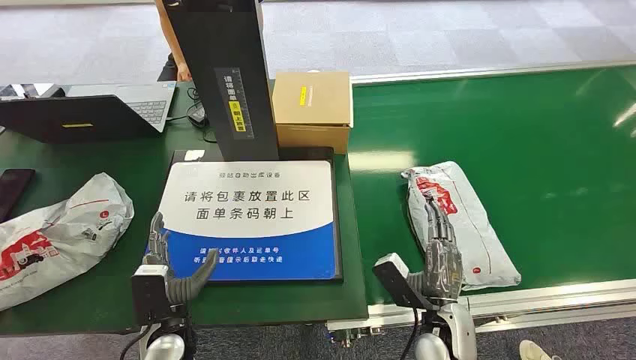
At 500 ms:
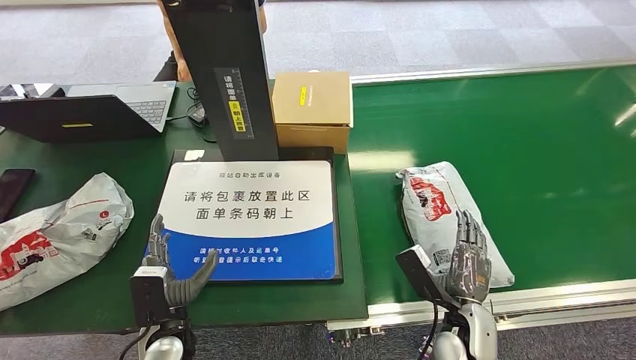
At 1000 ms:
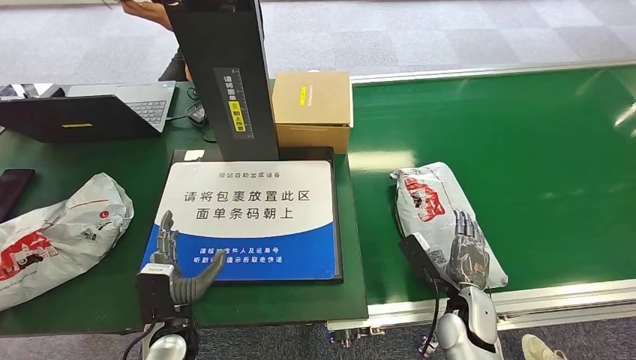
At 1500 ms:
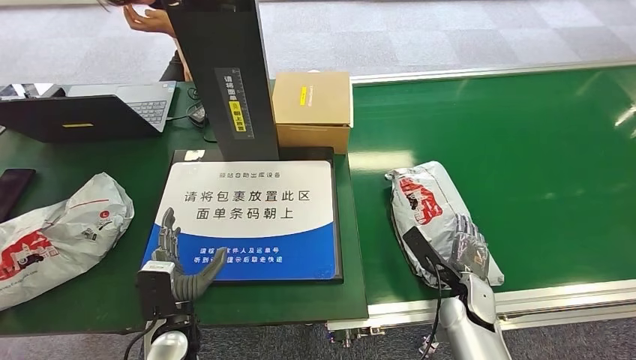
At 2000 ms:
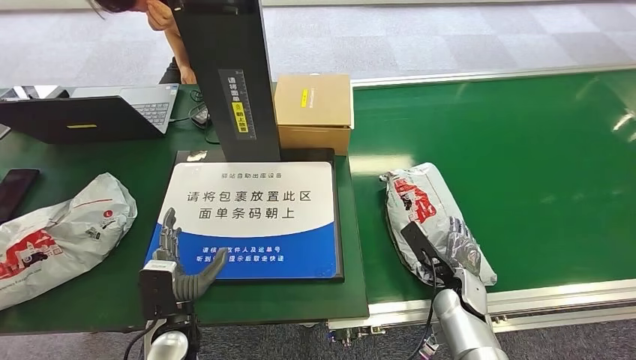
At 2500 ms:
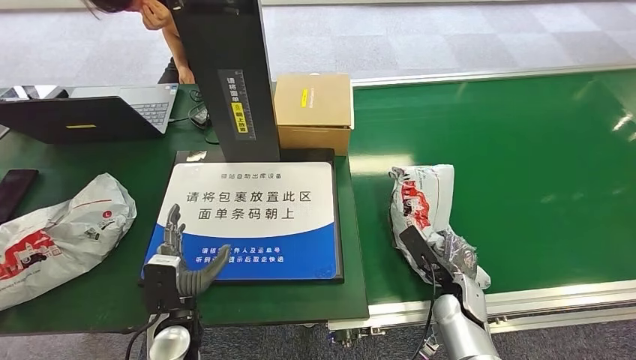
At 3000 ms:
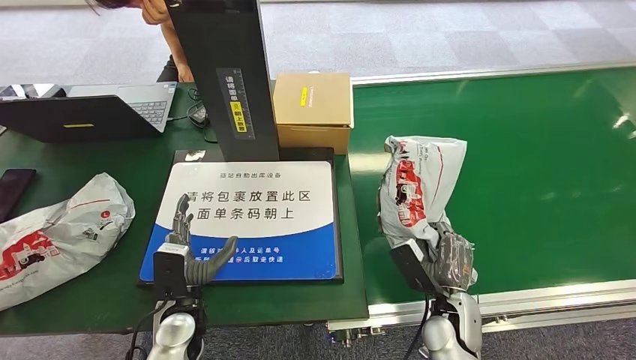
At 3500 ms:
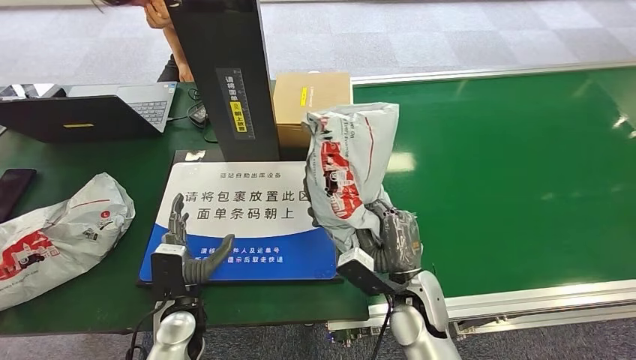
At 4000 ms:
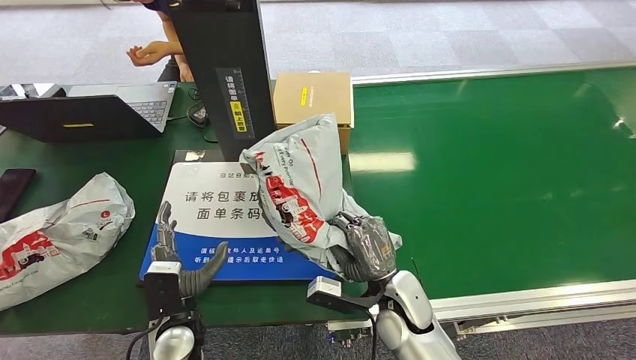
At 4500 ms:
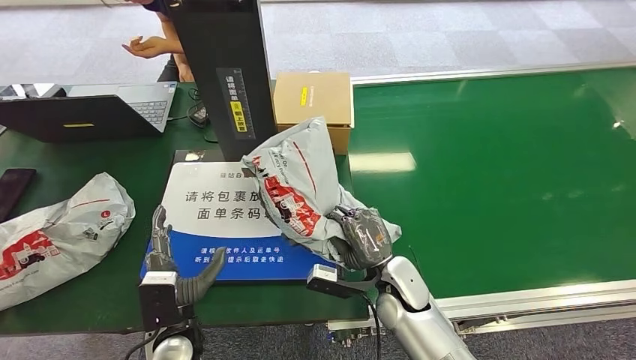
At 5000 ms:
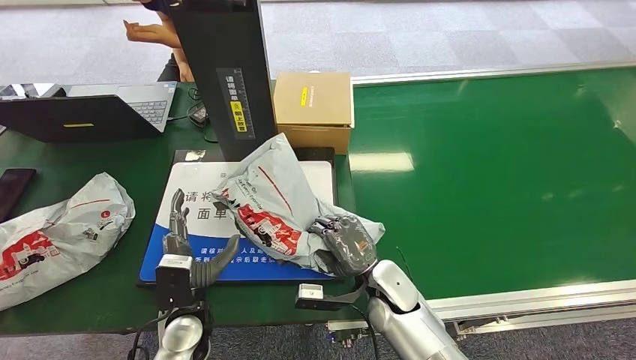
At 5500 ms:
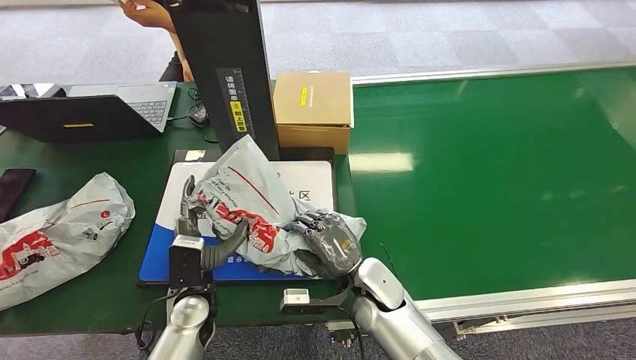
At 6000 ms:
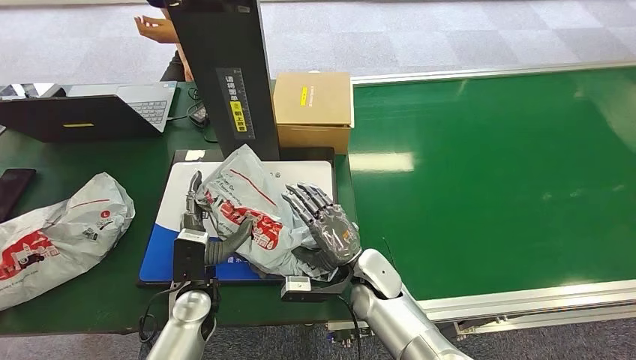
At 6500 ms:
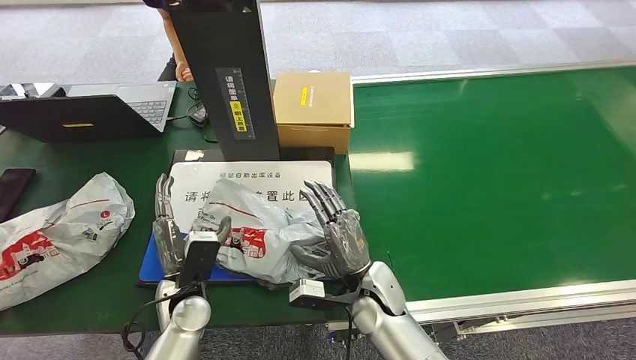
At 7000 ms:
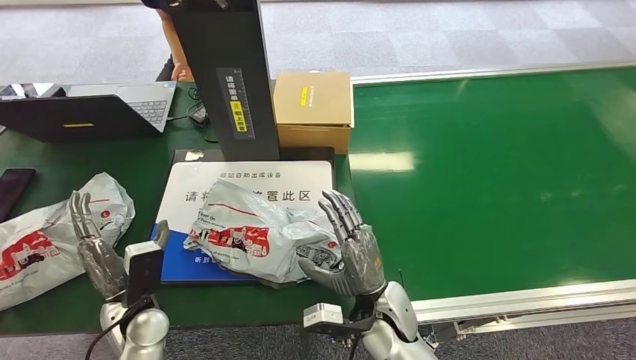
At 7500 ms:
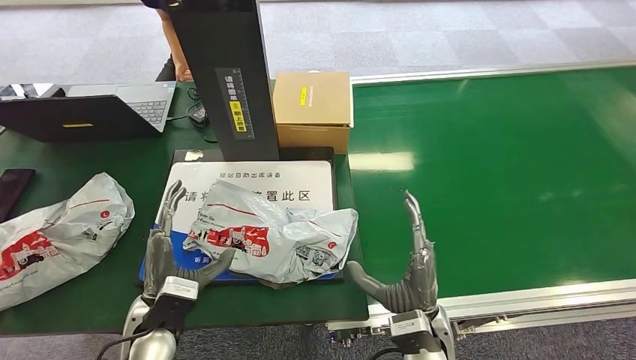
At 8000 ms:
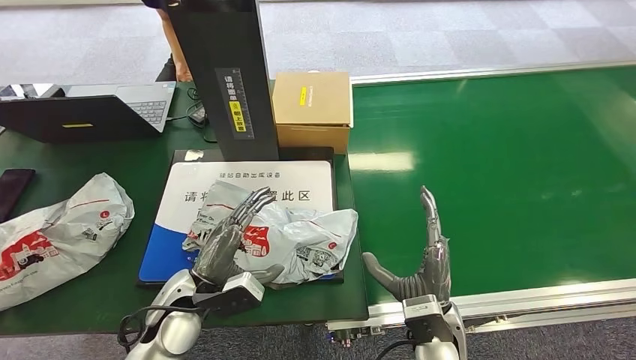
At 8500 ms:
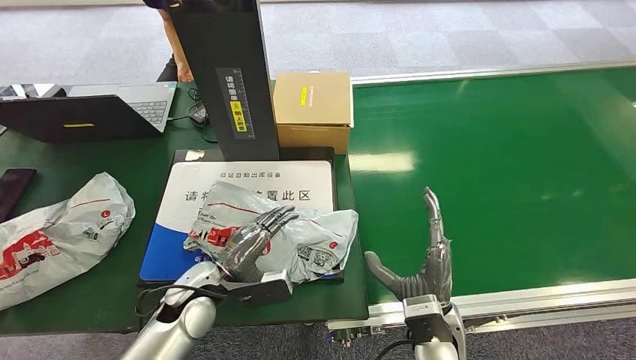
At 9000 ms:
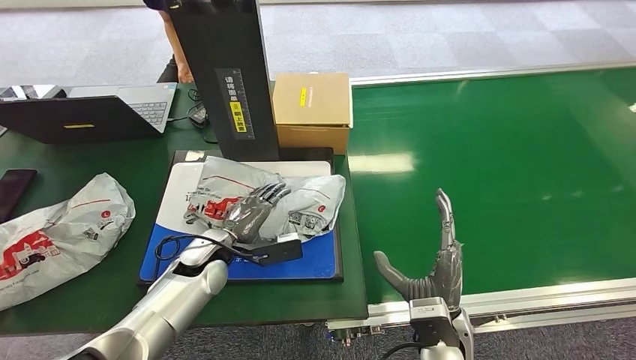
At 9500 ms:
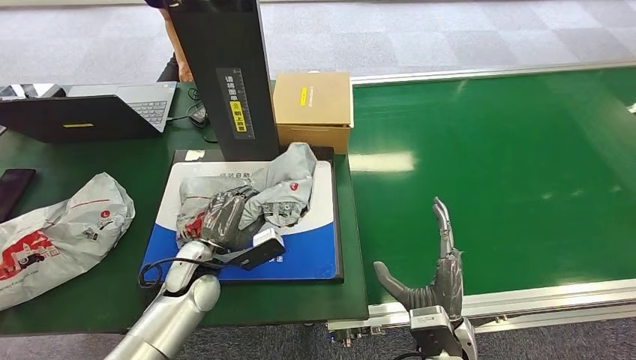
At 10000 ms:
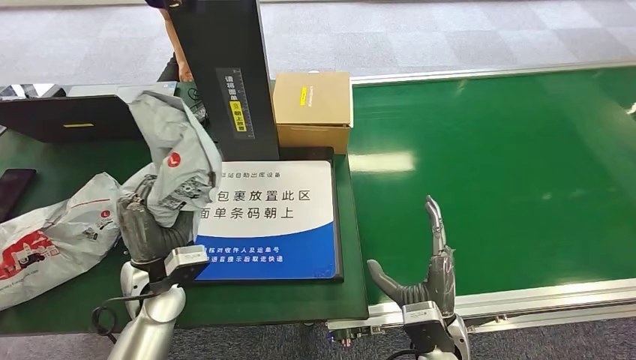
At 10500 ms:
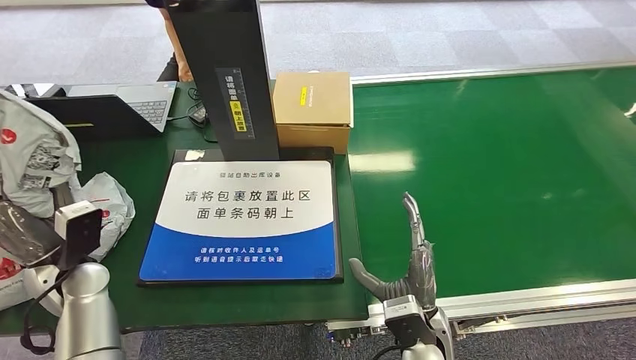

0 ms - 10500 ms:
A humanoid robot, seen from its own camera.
Step, 0 ms - 3500 ms: Pick up the package from the conveyor belt.
Step, 4000 ms - 7500 ms: Place the package onto the inbound machine.
Step, 8000 ms - 9500 ms: Pick up the package from the inbound machine.
6500 ms - 8500 ms: The right hand shifts roughly 10 cm to the right and backward; the left hand travels to the left and back again, roughly 5 cm each way.
8500 ms - 10500 ms: The left hand goes about 20 cm to the left.

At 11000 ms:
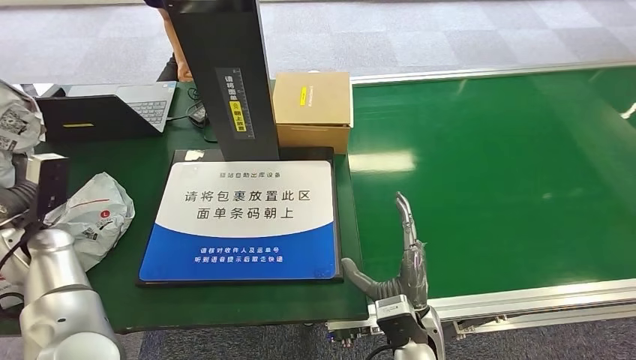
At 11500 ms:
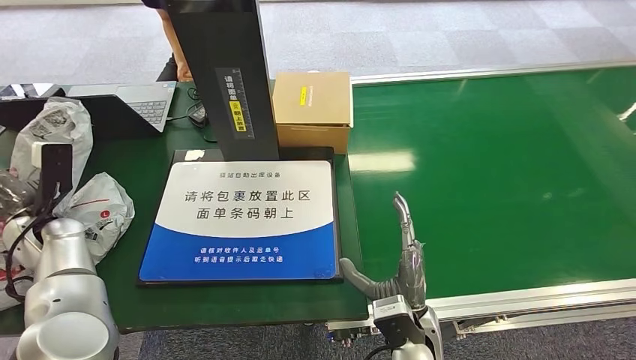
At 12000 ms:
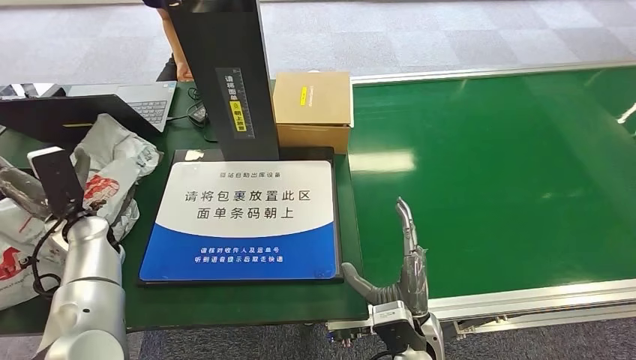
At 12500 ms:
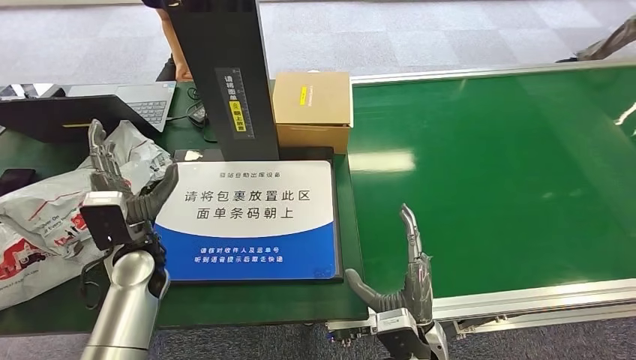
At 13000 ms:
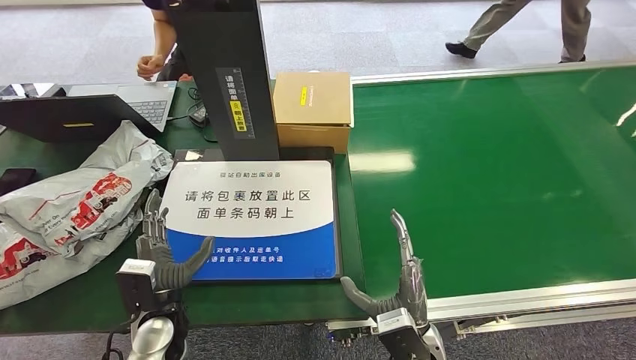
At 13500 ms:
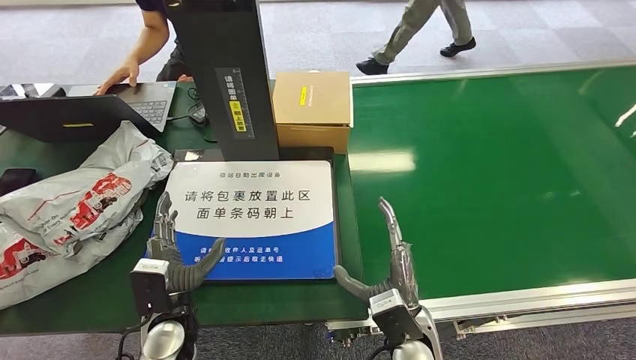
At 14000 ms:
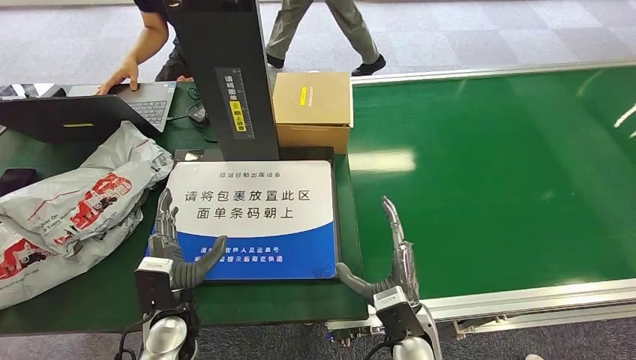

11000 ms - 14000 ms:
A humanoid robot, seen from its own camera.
Step, 11000 ms - 14000 ms: Place the package into the parcel locker.
11000 ms - 12500 ms: The left hand shifts roughly 20 cm to the right.
12500 ms - 14000 ms: The left hand travels backward, downward and to the right by about 15 cm.

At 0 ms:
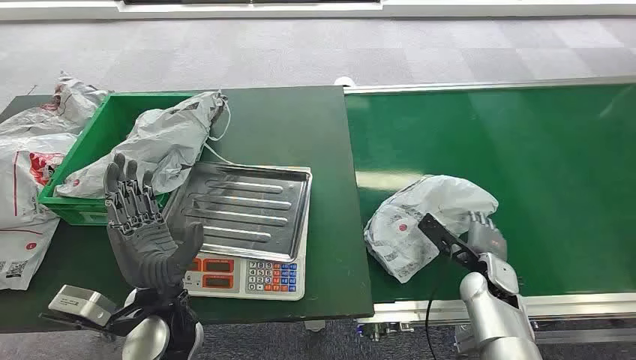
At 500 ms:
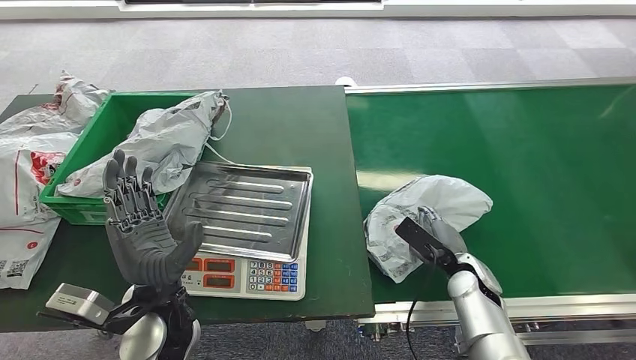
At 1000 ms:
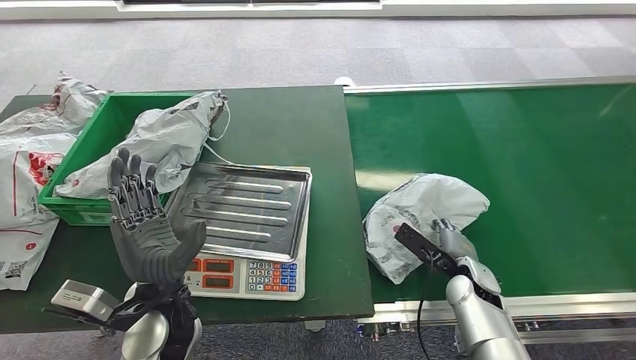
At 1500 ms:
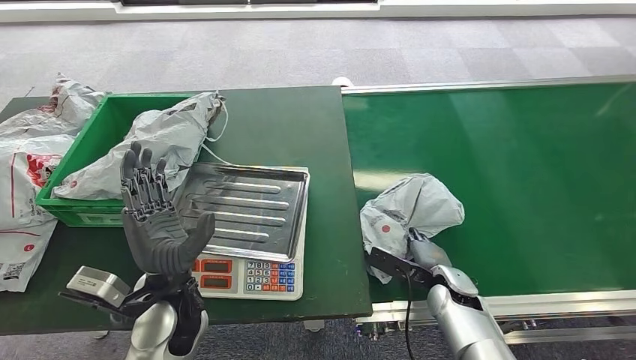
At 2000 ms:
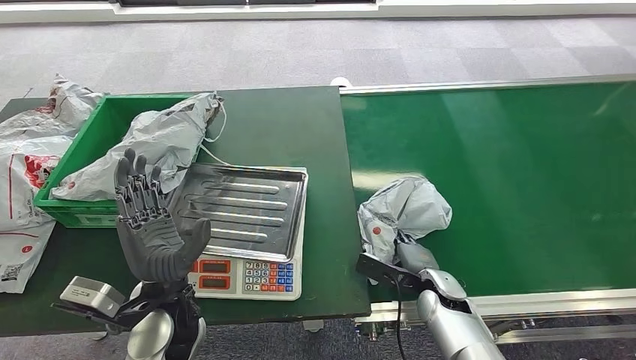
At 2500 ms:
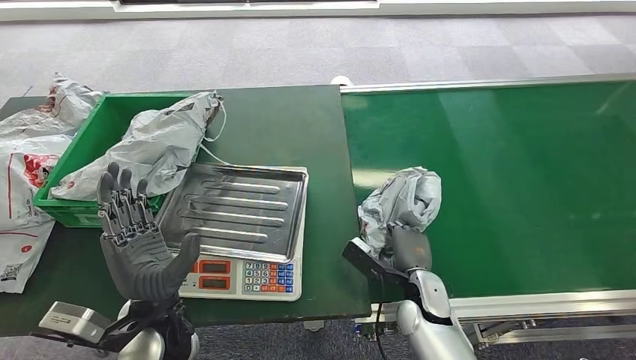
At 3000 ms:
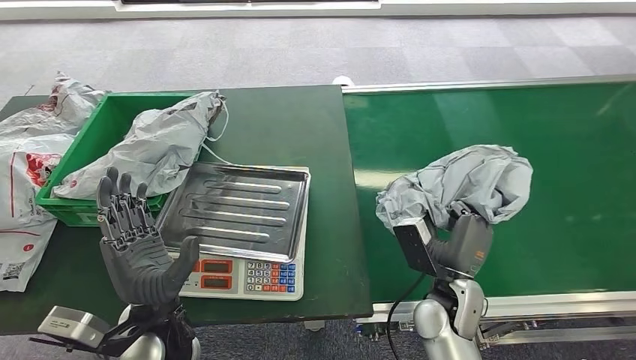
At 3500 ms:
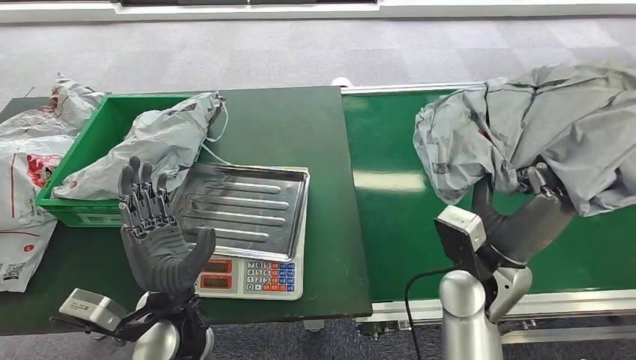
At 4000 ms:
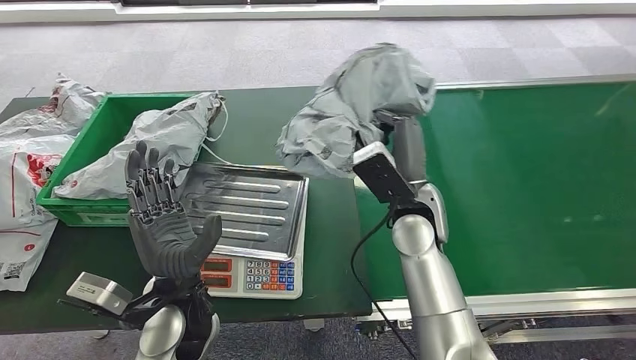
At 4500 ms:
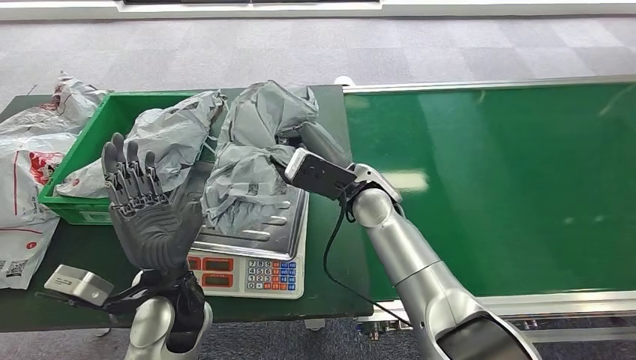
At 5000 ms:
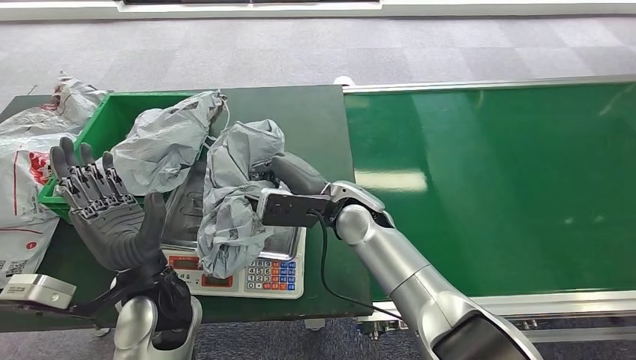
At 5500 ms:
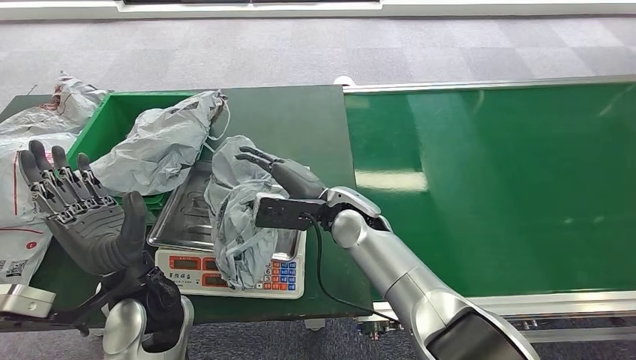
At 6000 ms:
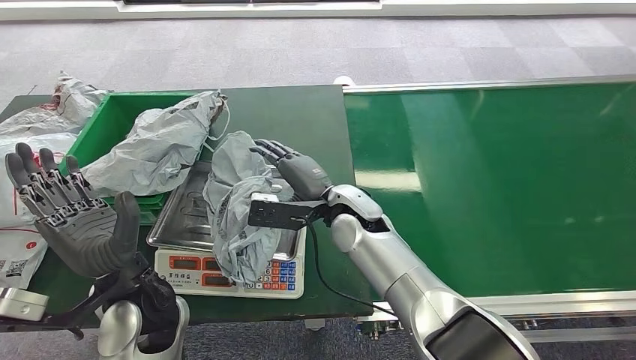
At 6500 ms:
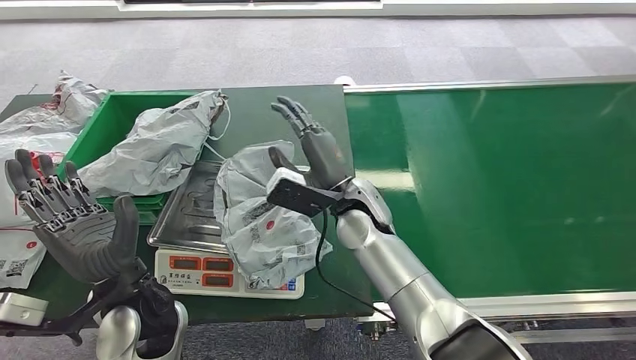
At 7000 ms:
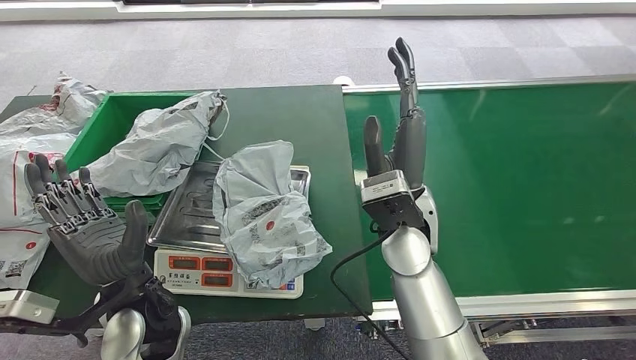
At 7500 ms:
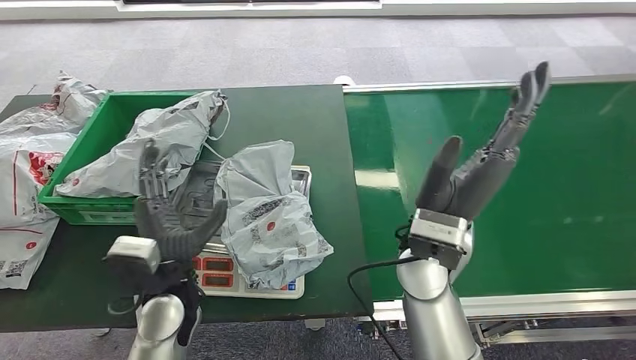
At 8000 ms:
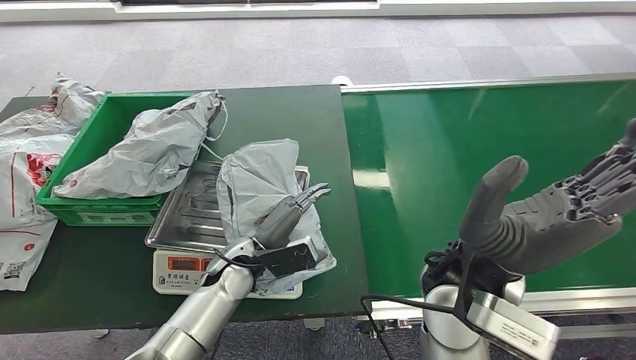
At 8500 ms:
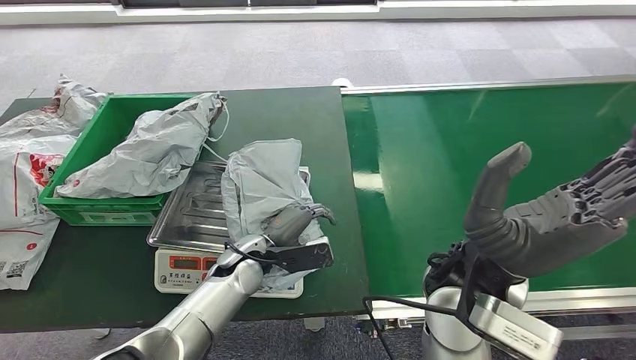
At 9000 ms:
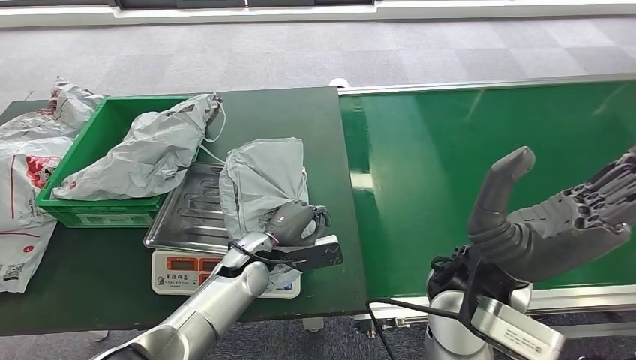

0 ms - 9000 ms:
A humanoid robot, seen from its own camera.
Step, 0 ms - 4000 ms: Pick up the package from the conveyor belt.
Step, 4500 ms - 6500 ms: Place the package onto the inbound machine.
